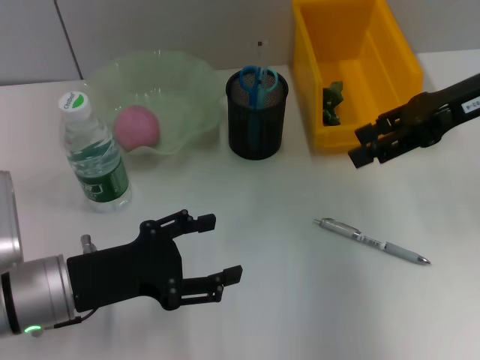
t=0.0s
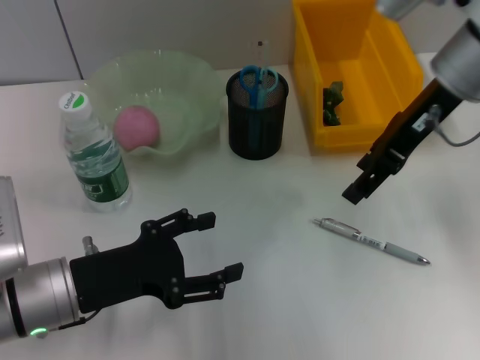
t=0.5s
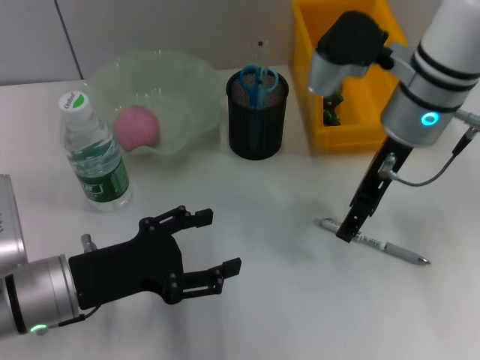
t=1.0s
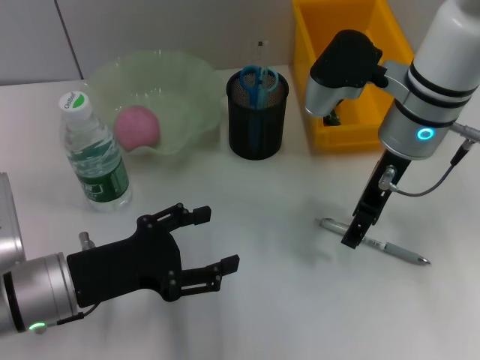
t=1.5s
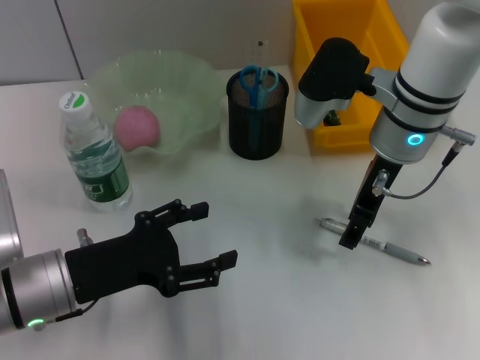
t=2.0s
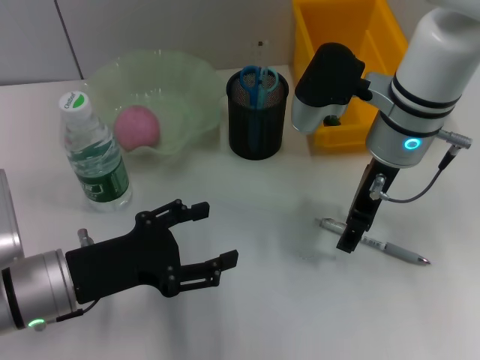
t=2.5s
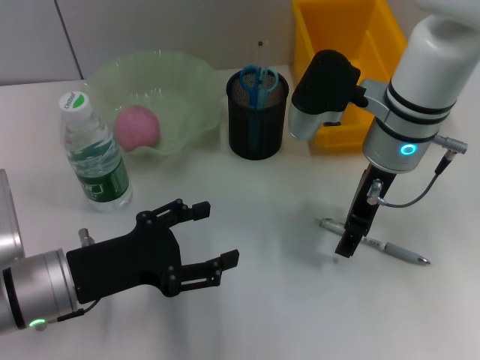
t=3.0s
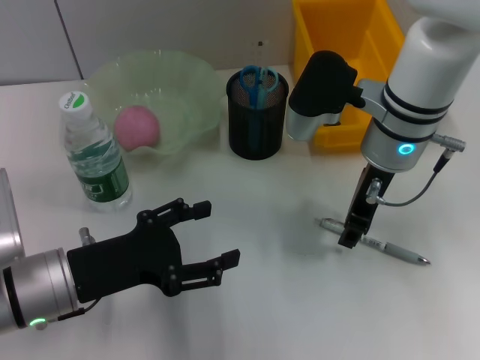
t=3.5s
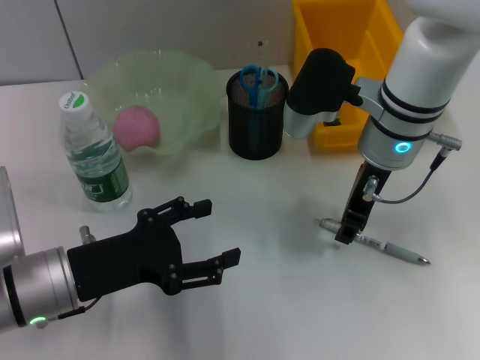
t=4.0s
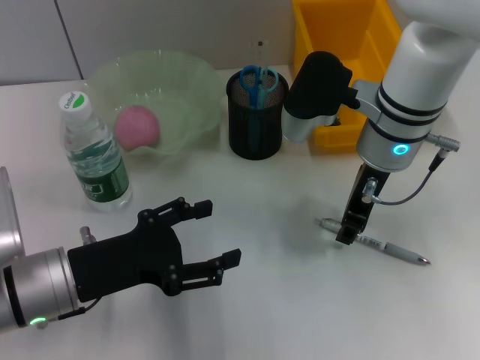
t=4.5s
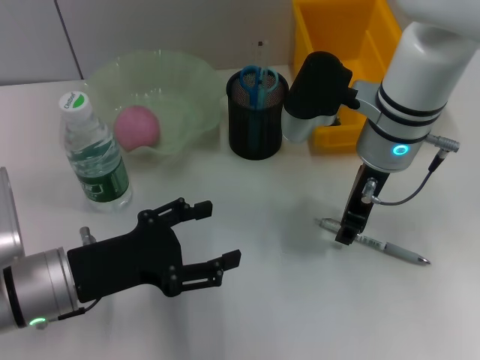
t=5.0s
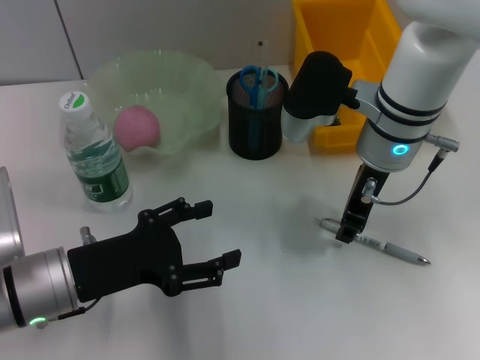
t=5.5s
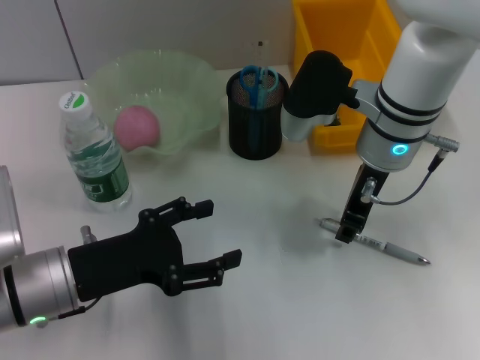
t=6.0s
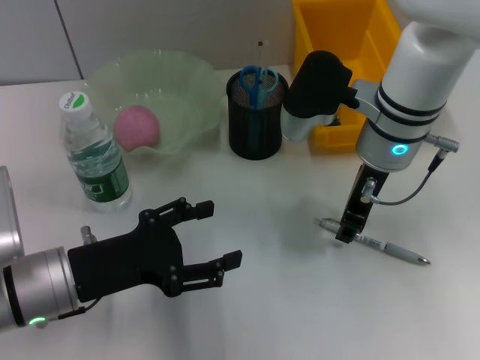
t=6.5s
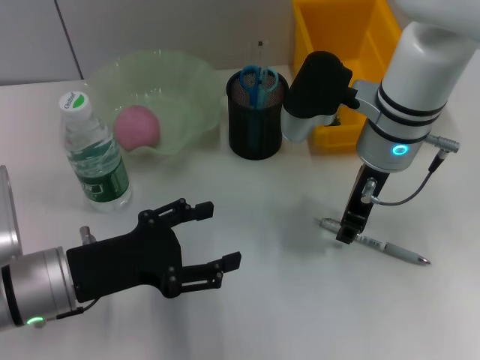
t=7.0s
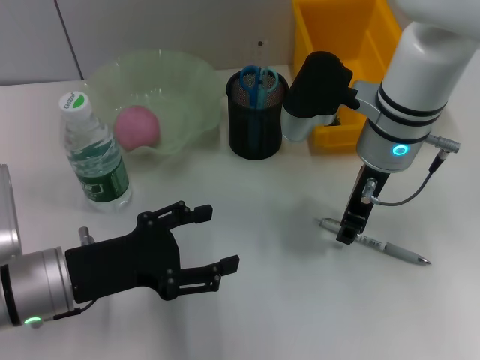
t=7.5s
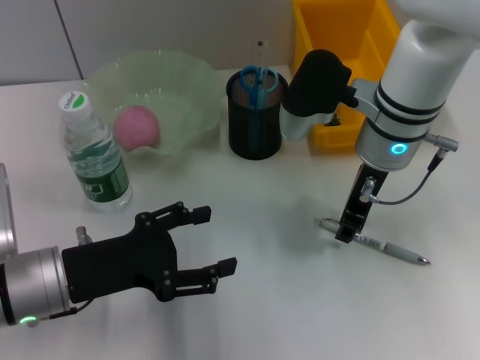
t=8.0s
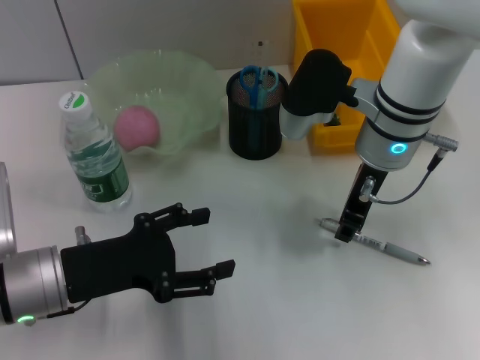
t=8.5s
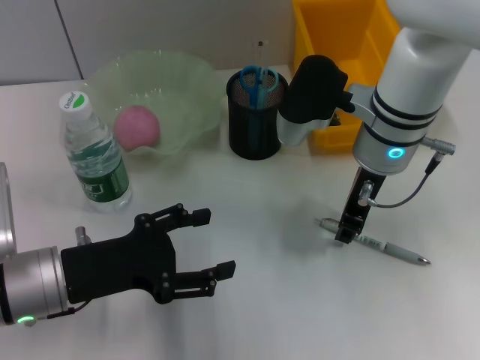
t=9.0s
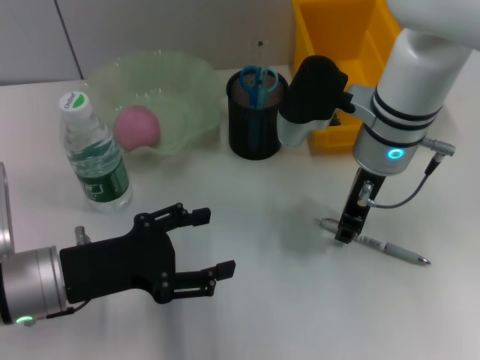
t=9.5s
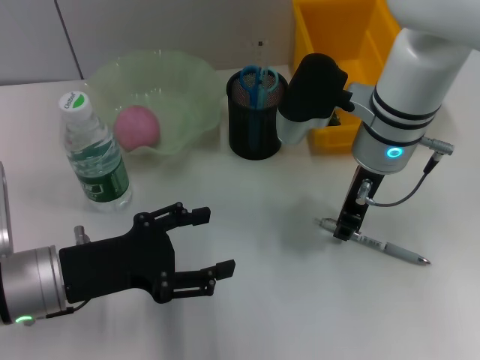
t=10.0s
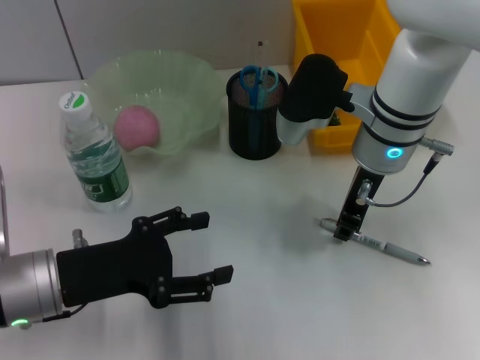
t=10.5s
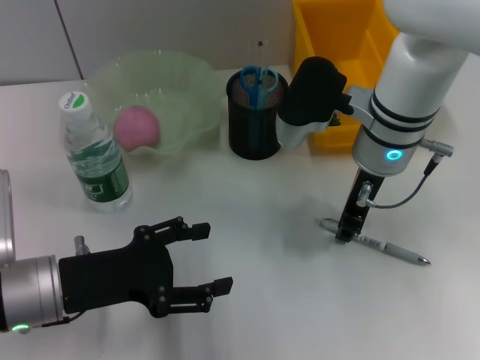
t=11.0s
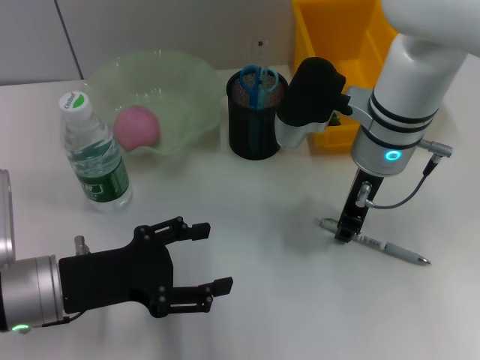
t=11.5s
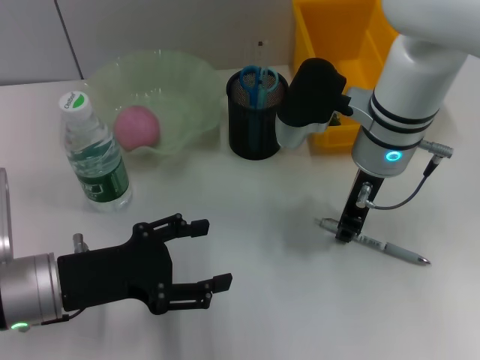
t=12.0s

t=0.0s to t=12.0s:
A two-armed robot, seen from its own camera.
t=0.0s to t=2.0s: The right gripper moves to the left and downward, approximately 15 cm.
t=2.0s to t=4.0s: The right gripper closes up.
t=4.0s to t=10.0s: Both grippers stay put.
t=10.0s to t=12.0s: Neither gripper changes place.

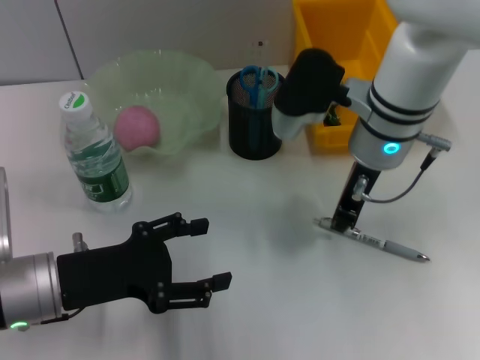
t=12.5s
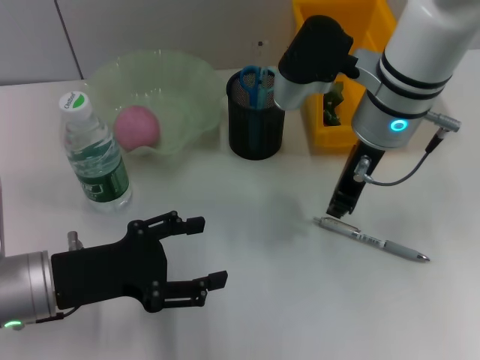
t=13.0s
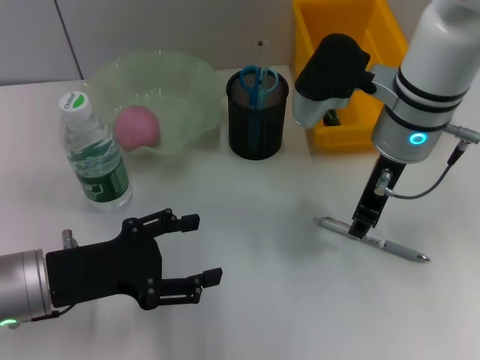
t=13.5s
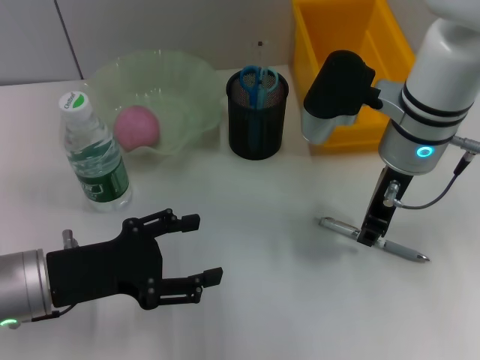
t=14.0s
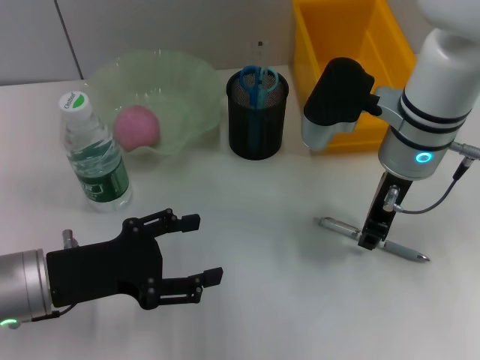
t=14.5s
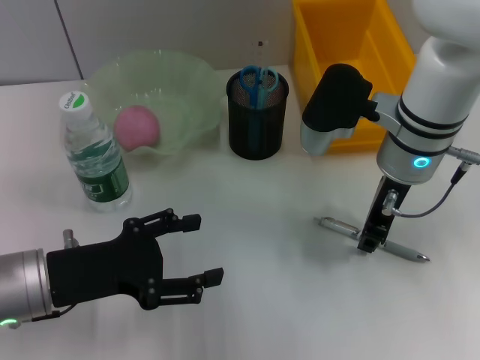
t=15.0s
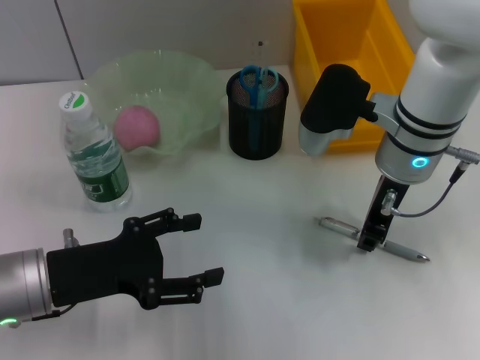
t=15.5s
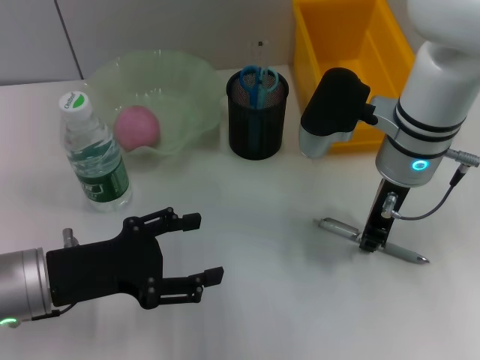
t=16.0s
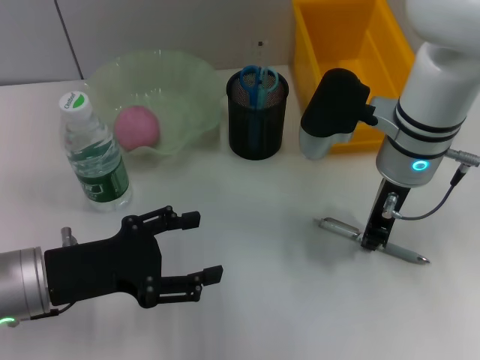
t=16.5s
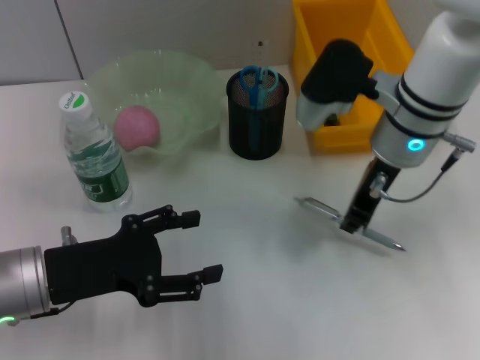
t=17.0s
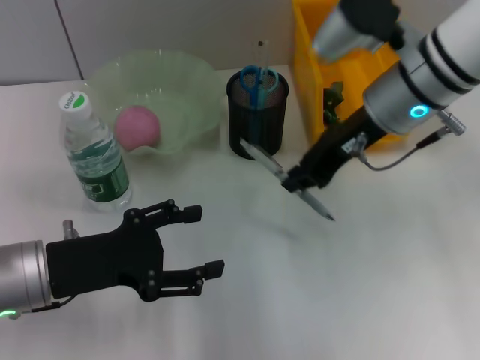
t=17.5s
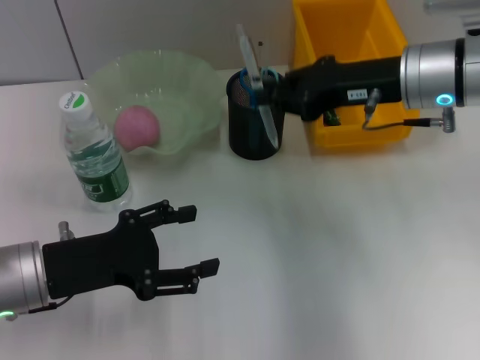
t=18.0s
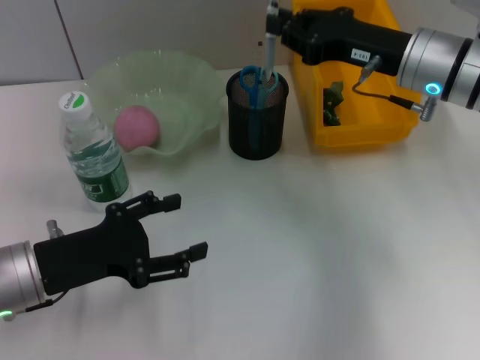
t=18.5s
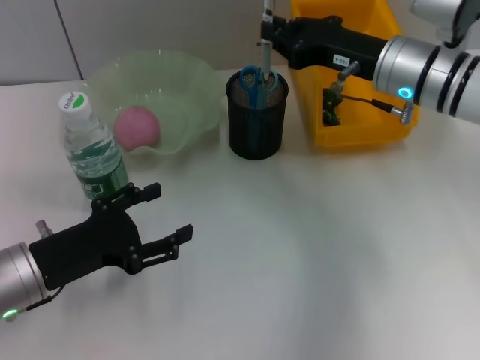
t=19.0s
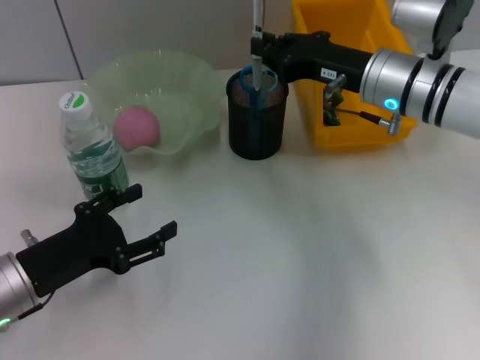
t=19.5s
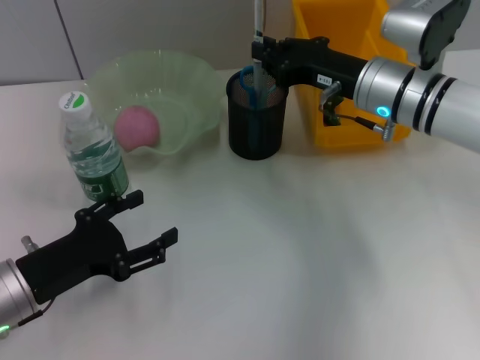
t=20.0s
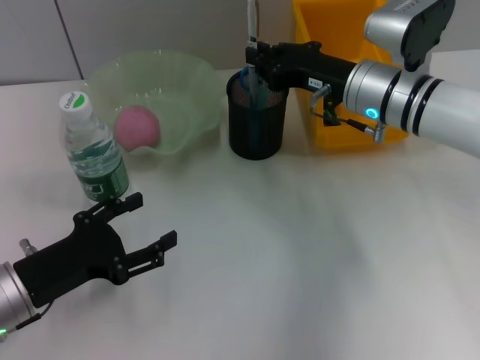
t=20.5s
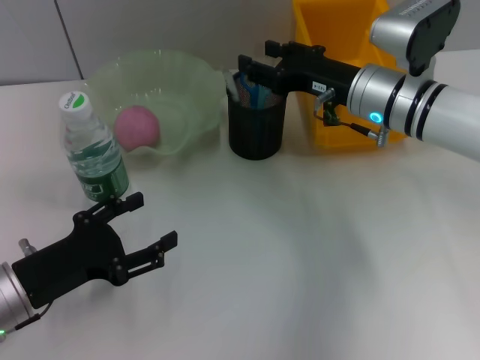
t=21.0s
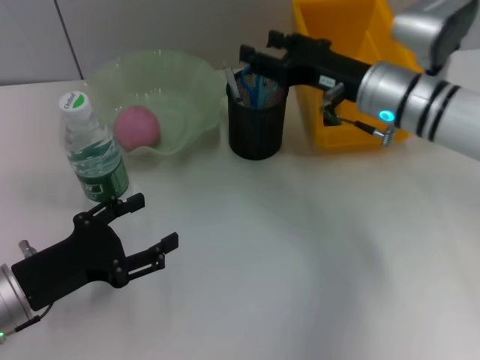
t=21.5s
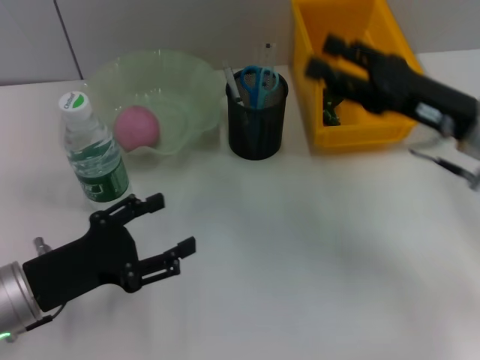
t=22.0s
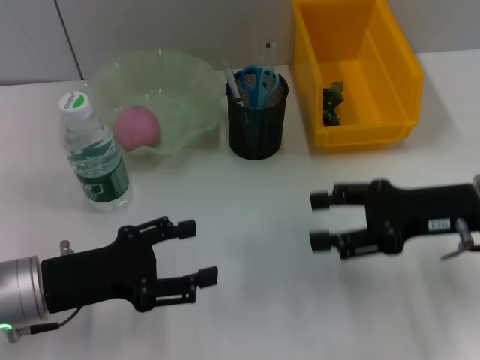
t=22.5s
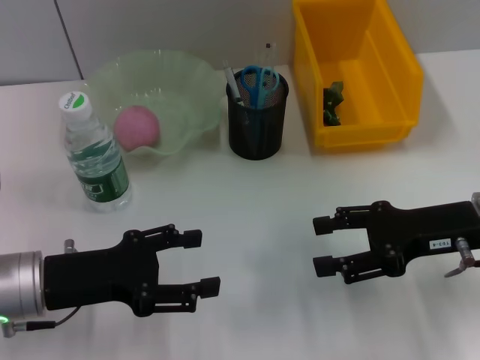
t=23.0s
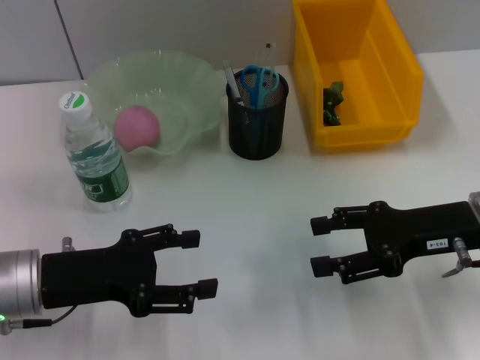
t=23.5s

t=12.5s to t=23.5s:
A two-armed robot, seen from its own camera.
Step, t=12.5s to t=16.0s: Grab the gray spring-action pen with the right hand.
Step, t=16.5s to t=21.0s: Place the gray spring-action pen into the pen holder with the right hand.
t=12.5s to t=14.5s: The grippers move only a little.
t=14.5s to t=16.0s: Both grippers stay put.
t=16.0s to t=18.0s: The right gripper shifts by roughly 5 cm.
t=18.0s to t=20.0s: The right gripper heads downward, covering roughly 5 cm.
t=20.0s to t=21.5s: The right gripper opens its fingers.
t=21.5s to t=23.5s: The right gripper goes approximately 15 cm backward and to the right.

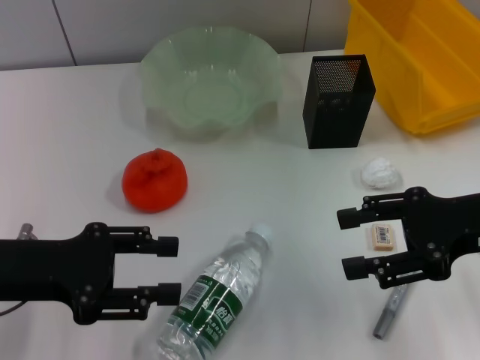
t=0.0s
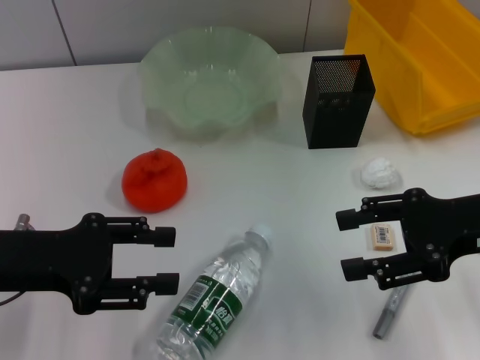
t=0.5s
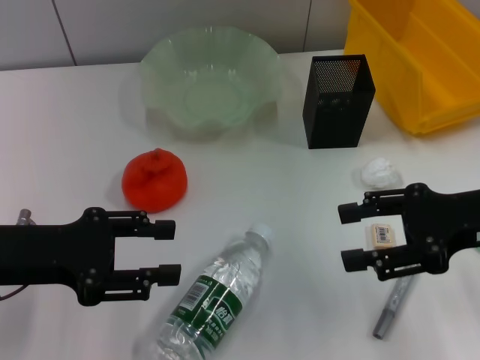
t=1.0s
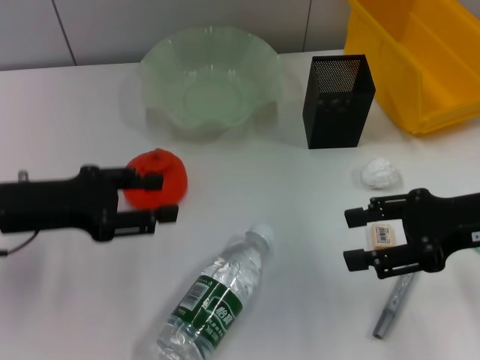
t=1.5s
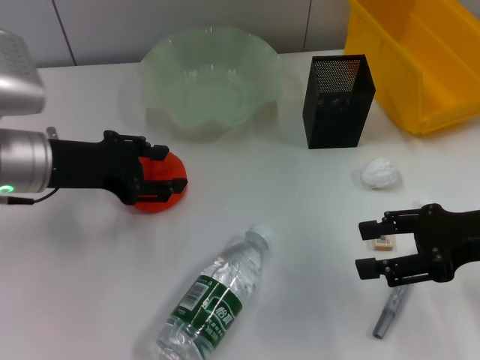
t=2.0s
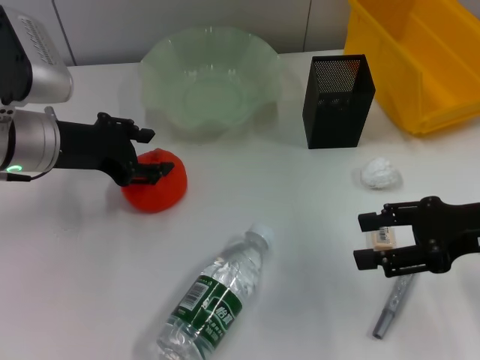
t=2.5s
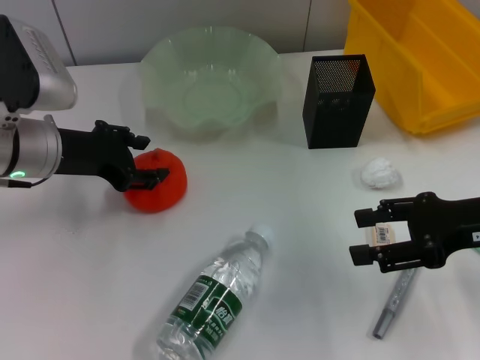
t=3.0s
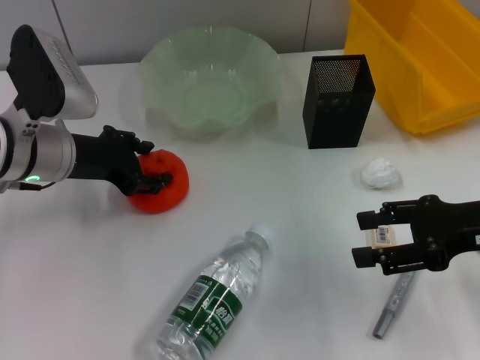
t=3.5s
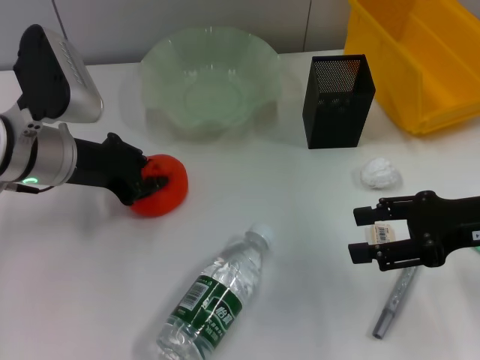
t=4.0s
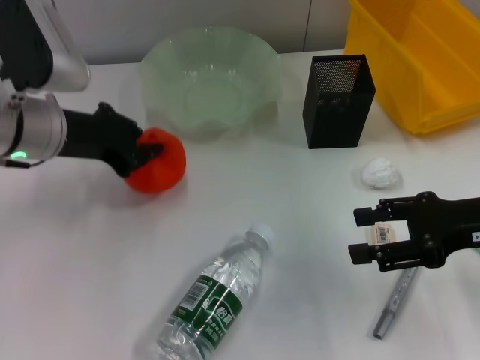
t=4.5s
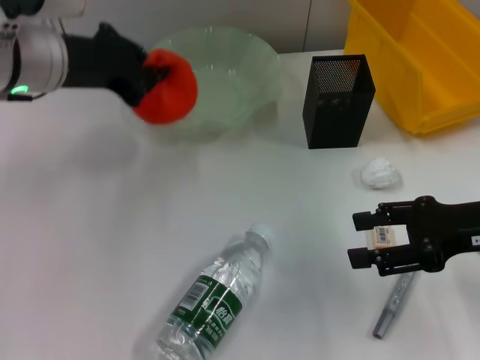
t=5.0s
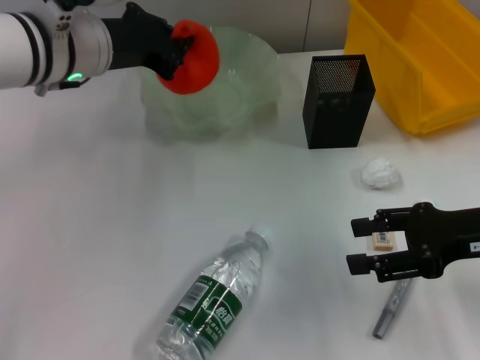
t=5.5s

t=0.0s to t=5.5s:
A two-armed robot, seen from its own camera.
Step, t=0.0s to t=4.0s: Grab the orange with the left hand.
t=0.0s to t=2.0s: The left gripper is displaced forward by some 10 cm.
t=2.0s to t=3.5s: The grippers stay close to where they were, moving slightly.
t=3.5s to t=5.5s: The left gripper travels upward and to the right by some 10 cm, and closes up.
